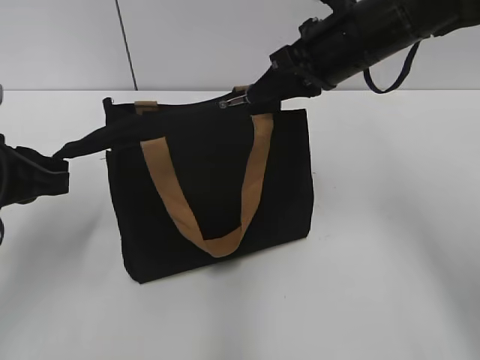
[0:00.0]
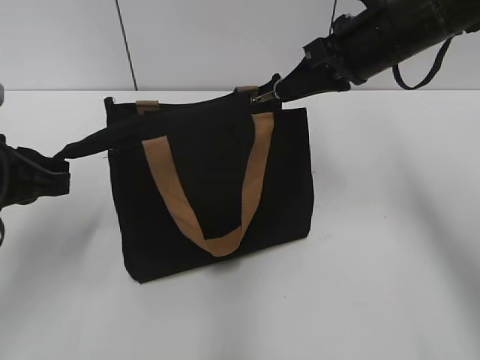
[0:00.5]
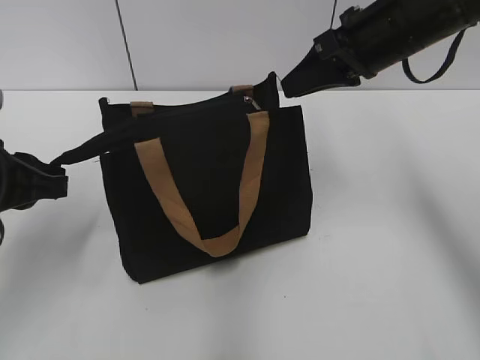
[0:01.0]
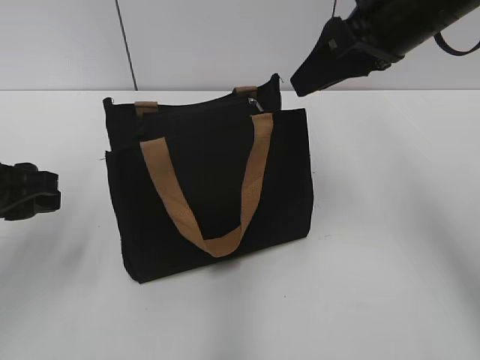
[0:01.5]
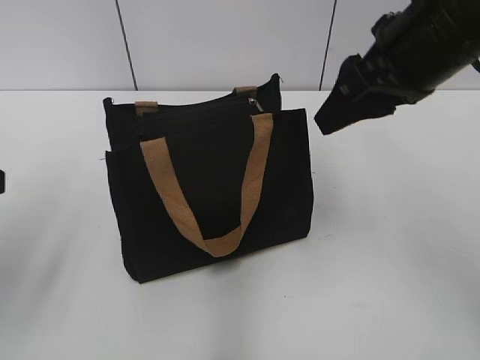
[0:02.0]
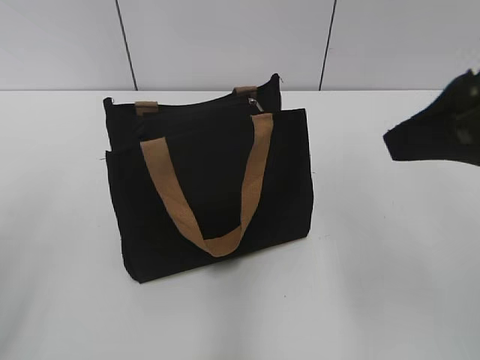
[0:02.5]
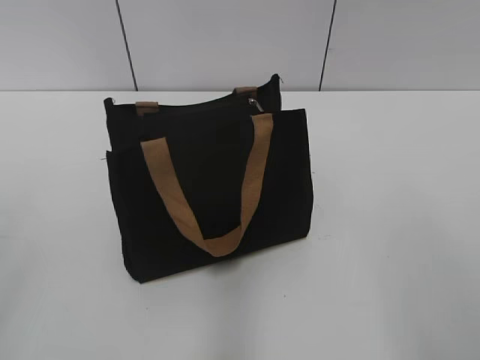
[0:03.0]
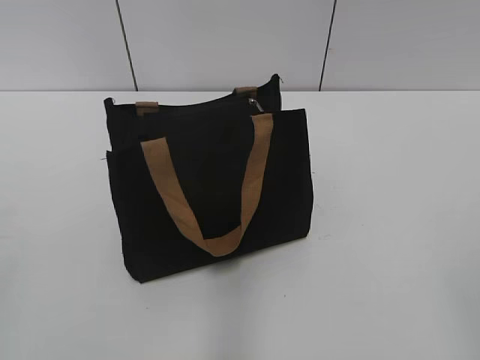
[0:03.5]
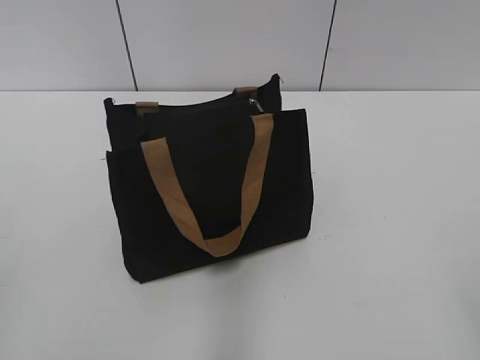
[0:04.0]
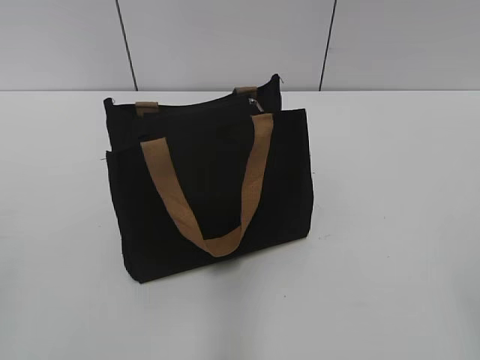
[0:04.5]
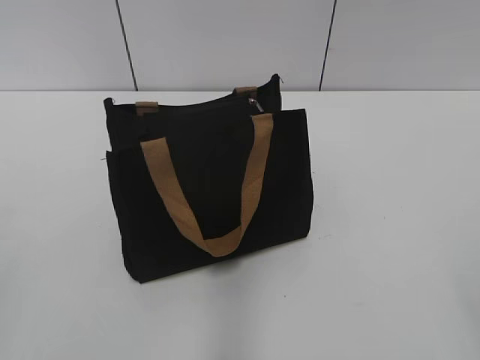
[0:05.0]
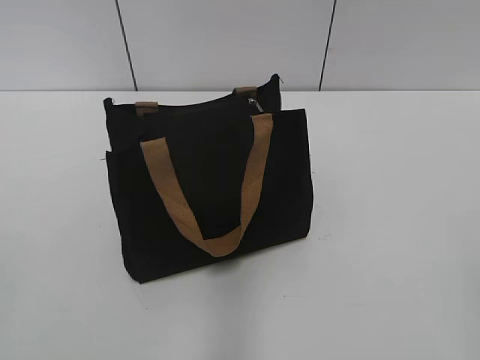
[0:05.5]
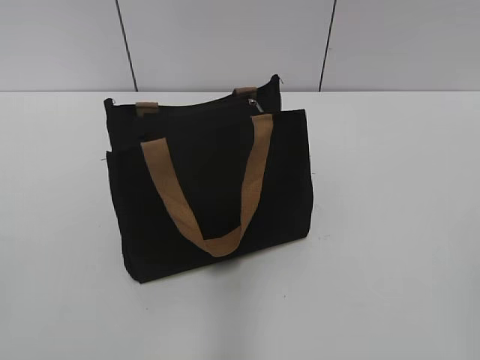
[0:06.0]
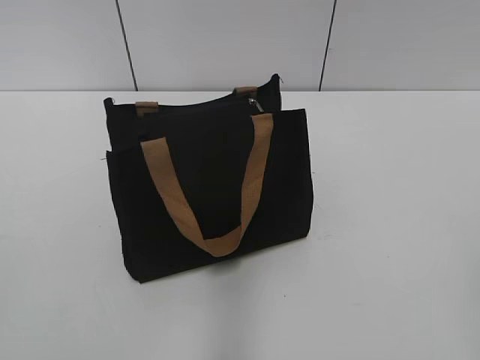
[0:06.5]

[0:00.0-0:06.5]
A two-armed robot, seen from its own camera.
0:00.0 to 0:02.0: The right gripper is displaced backward and upward by roughly 10 cm, and opens up; the left gripper travels upward by about 5 cm, and opens.
0:02.0 to 0:04.5: The right gripper heads backward and to the right, covering roughly 35 cm.
